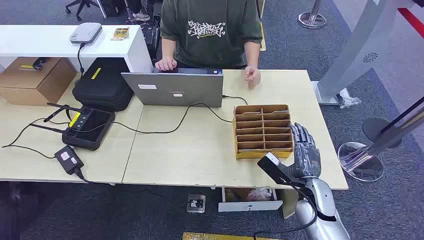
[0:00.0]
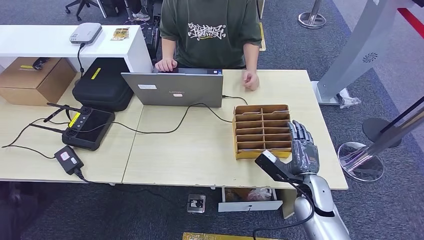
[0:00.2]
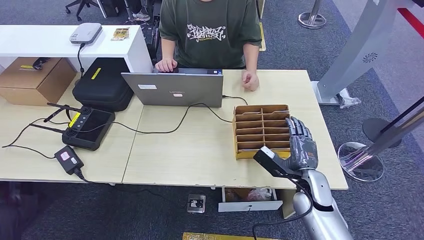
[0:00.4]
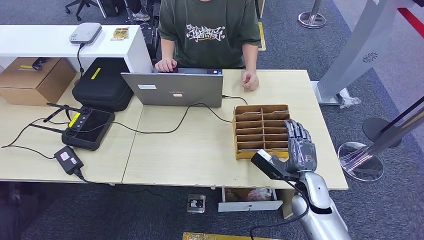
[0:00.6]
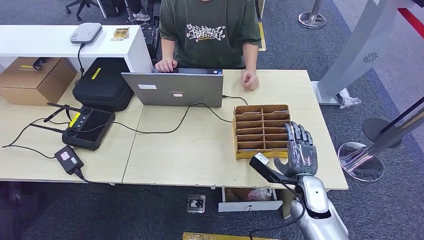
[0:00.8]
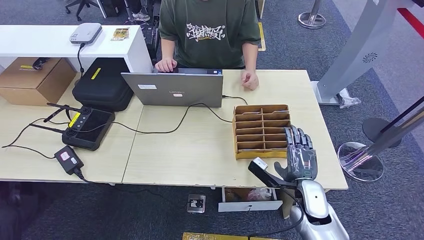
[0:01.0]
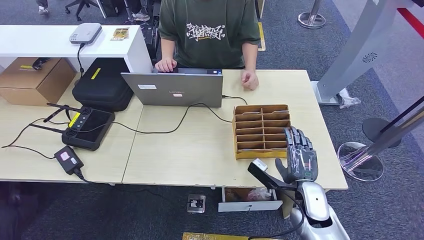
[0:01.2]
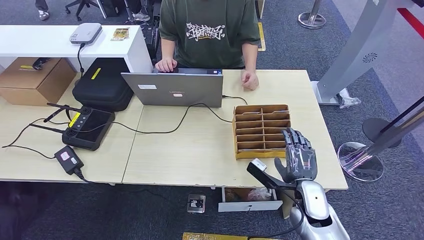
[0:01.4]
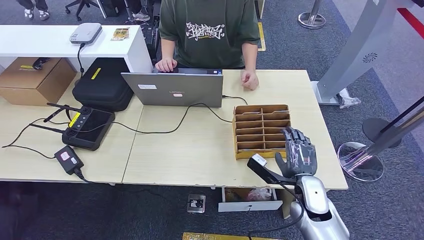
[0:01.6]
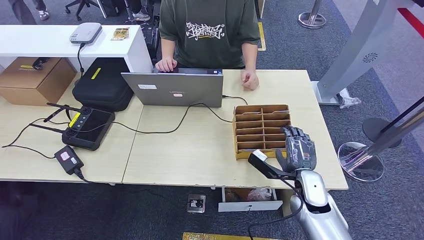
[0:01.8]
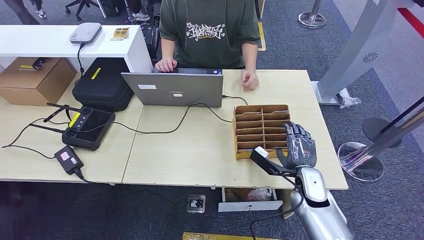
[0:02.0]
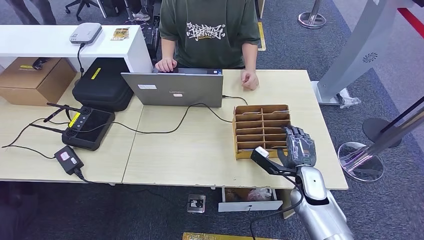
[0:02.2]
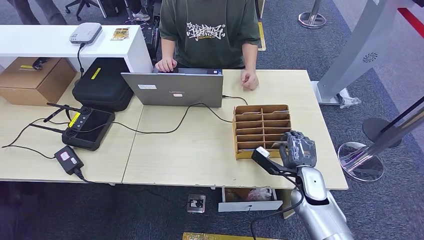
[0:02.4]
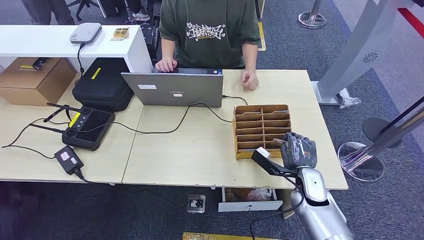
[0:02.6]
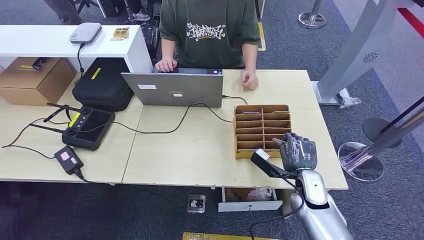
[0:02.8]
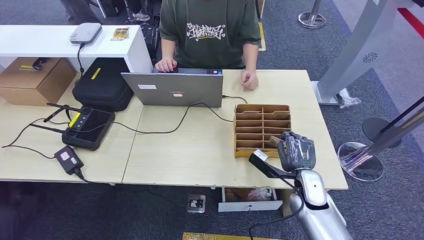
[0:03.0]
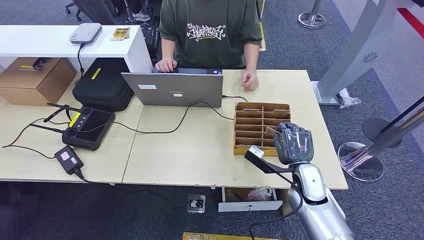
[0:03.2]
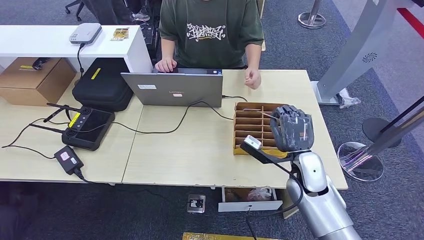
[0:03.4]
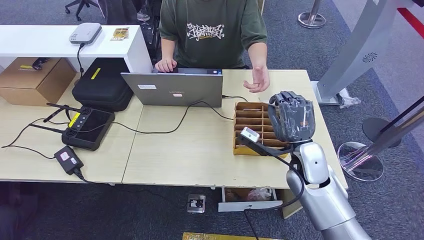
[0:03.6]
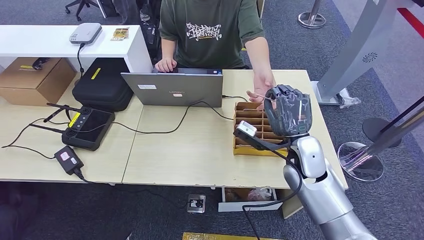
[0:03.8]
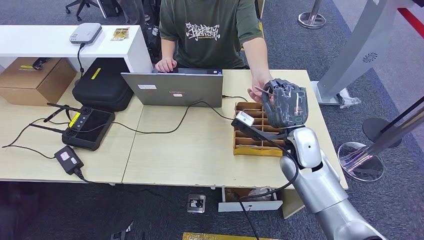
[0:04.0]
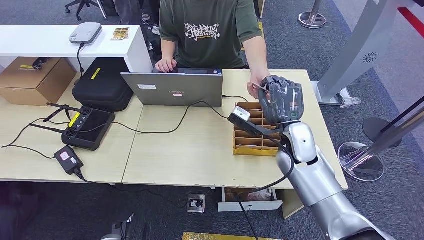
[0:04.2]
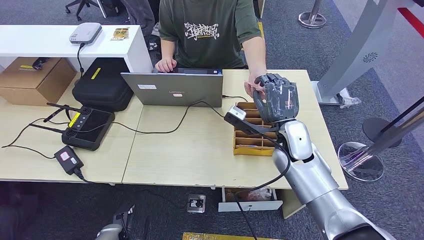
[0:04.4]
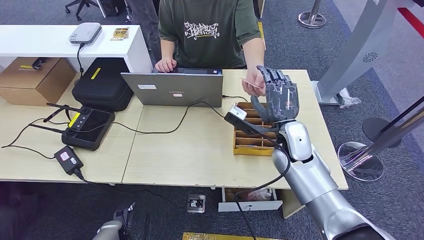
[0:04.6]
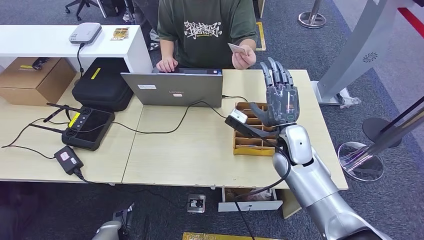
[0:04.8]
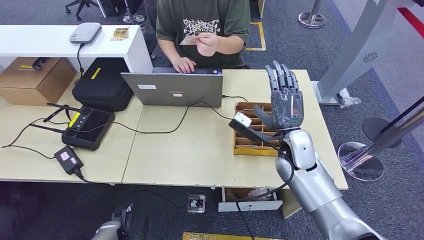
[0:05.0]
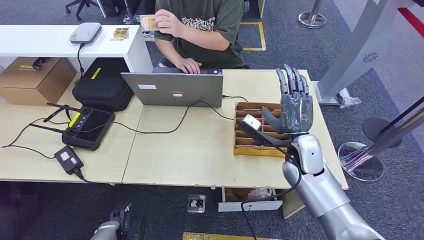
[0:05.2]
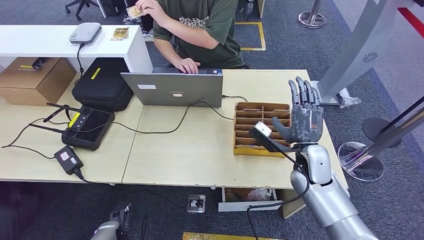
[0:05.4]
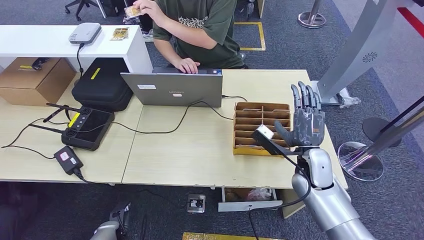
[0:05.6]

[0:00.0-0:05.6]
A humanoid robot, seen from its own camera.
Step, 0:00.0 to 0:03.2: Pick up the key card from the card box.
Step, 0:03.6 to 0:05.6: Hand the key card to the target.
0:01.4 to 0:02.8: The hands stay close to where they were, moving slightly.
0:02.8 to 0:04.2: The right hand goes approximately 15 cm upward, forward and to the left; the left hand travels forward by about 15 cm.
0:04.2 to 0:05.6: The right hand travels downward and to the right by approximately 10 cm.
